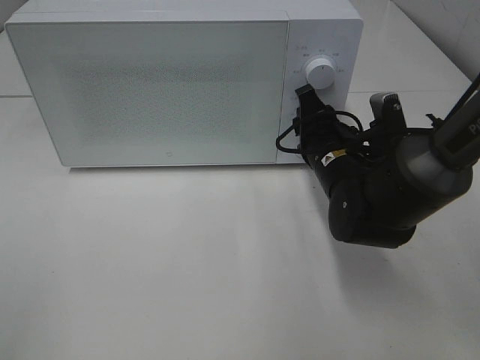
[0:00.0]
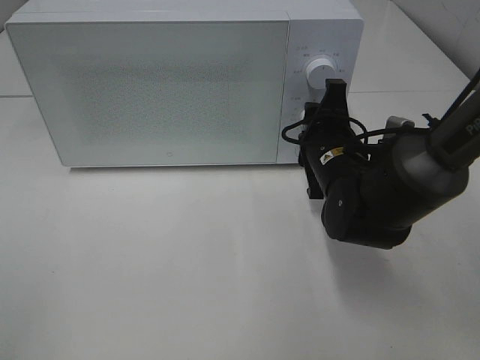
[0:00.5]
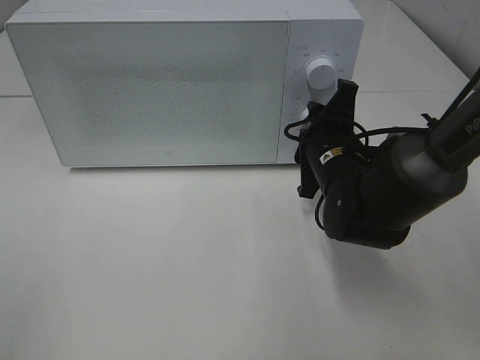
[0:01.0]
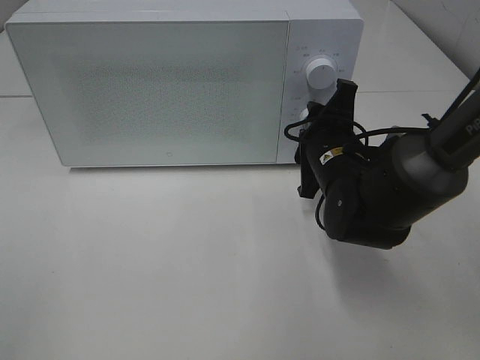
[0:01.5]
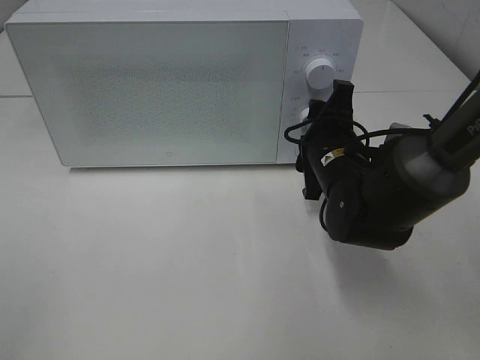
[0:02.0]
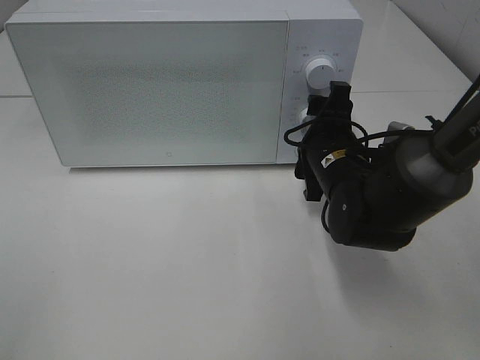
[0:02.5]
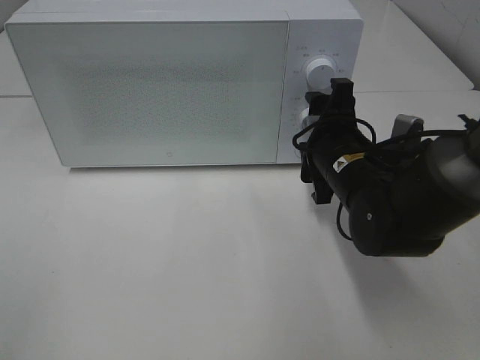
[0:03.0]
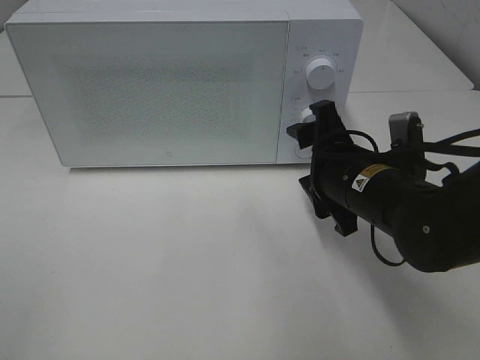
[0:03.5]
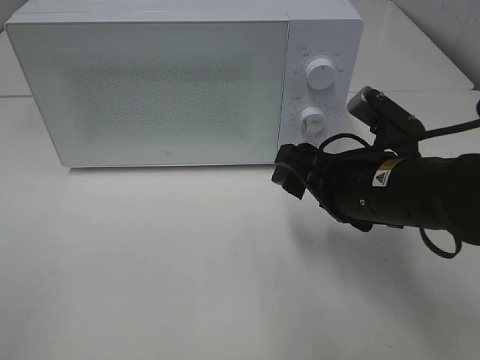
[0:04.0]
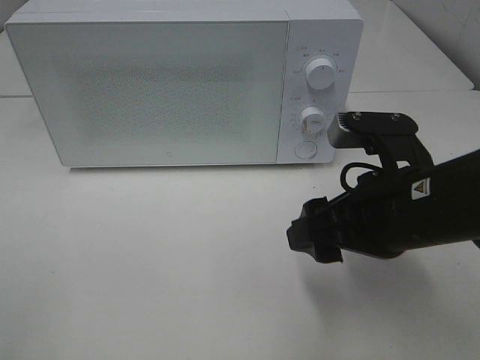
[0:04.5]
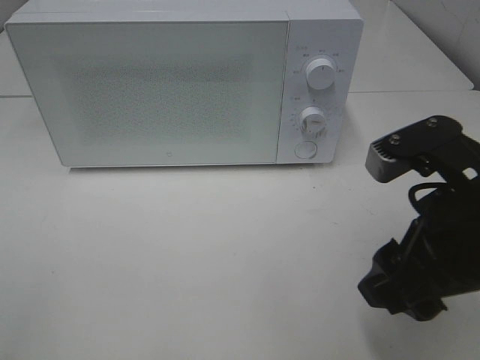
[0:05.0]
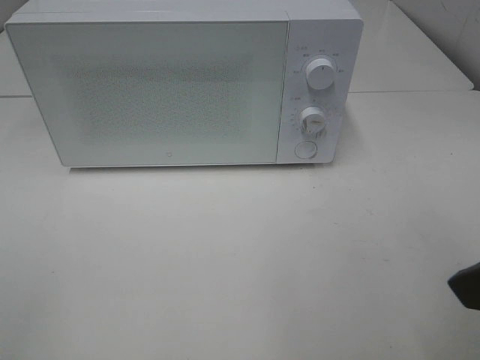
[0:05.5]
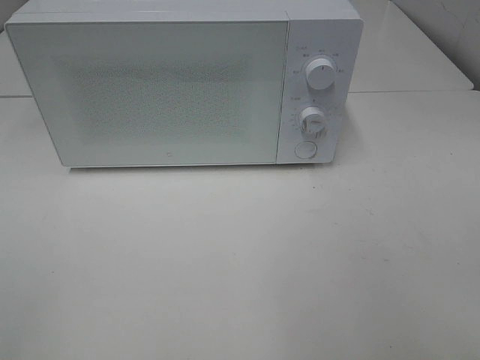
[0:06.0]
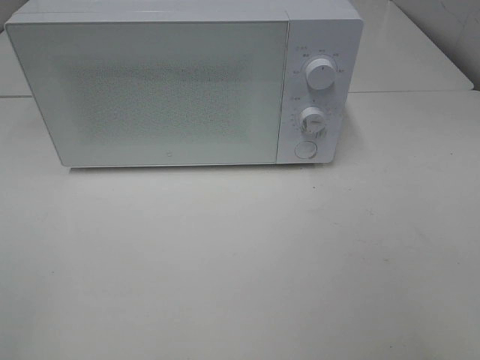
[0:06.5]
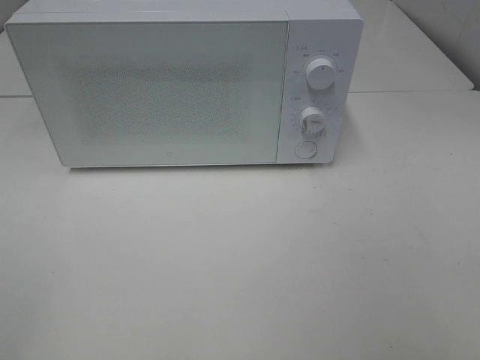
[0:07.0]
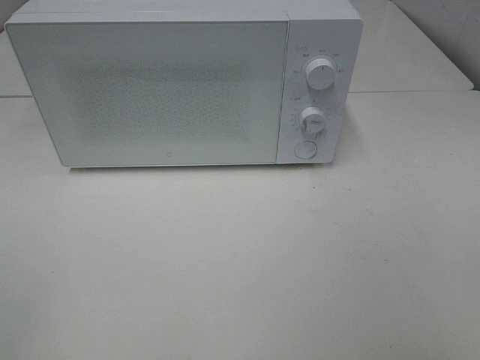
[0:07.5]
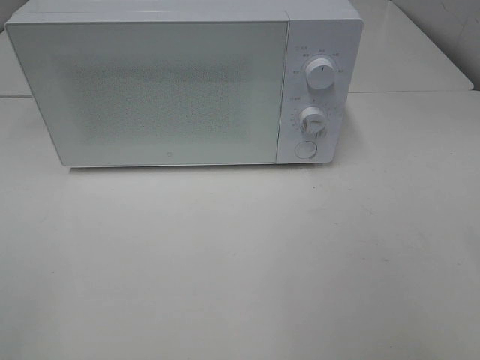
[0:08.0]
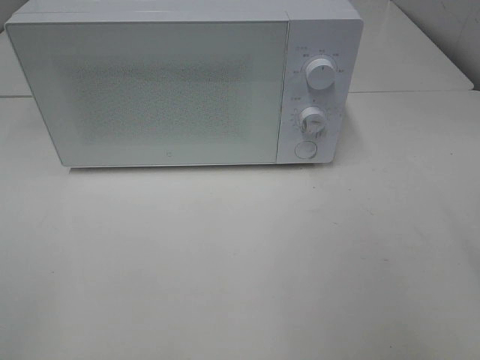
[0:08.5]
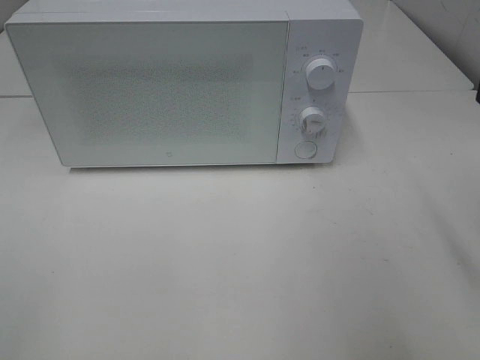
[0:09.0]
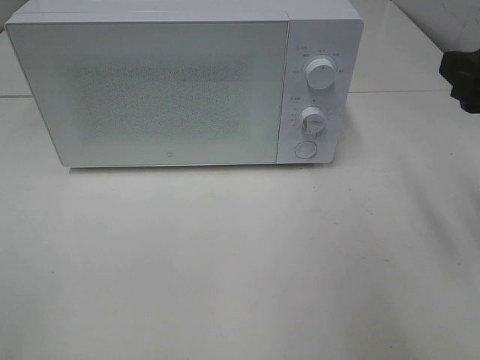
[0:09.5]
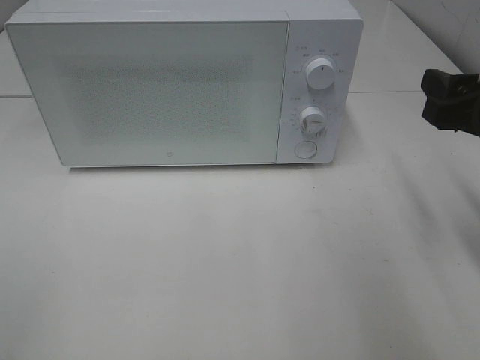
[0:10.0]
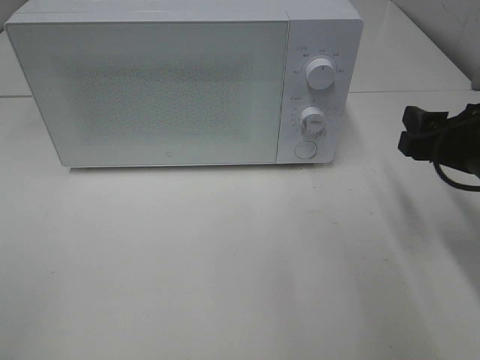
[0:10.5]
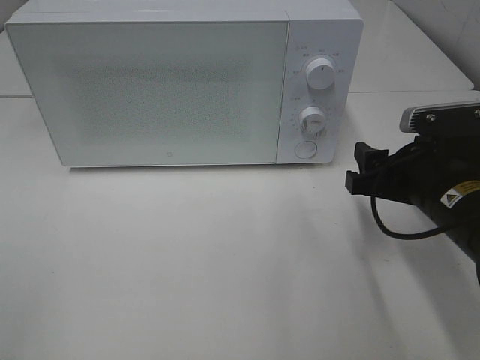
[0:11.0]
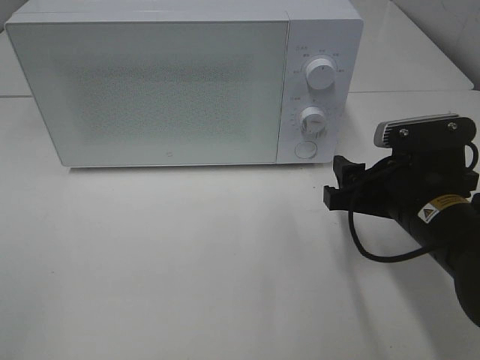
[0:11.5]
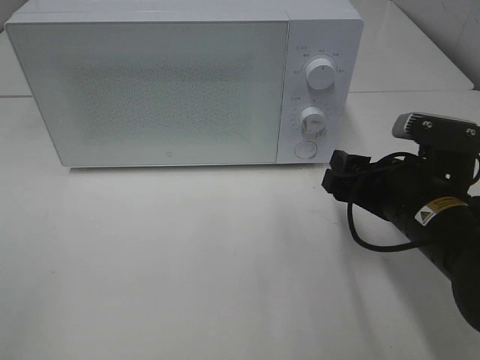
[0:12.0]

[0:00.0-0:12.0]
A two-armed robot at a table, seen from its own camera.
Task of the whole recording: Heat Sandwich.
Step, 0:00.0 to 0:02.5: Right hand: twist timer button.
0:02.0 to 0:04.0: The right gripper shifts approximately 10 cm backward.
0:04.0 to 0:06.0: The right gripper shifts about 25 cm backward, upward and to the right.
0:08.0 to 0:10.0: The right gripper shifts roughly 20 cm forward and downward.
0:10.0 to 0:12.0: The right gripper goes about 10 cm downward and to the left.

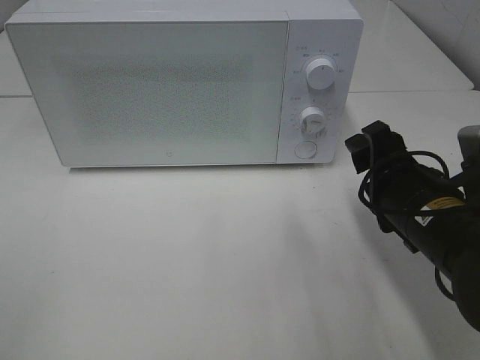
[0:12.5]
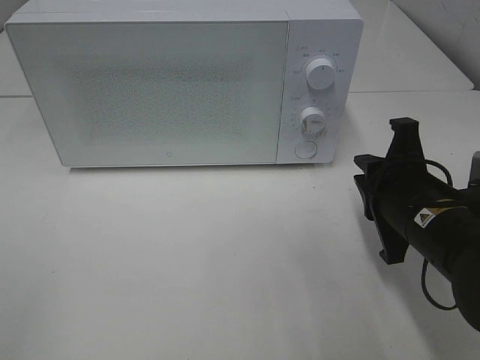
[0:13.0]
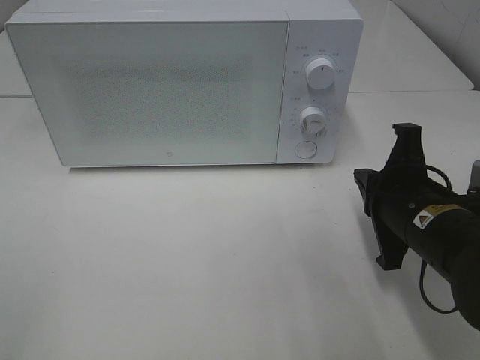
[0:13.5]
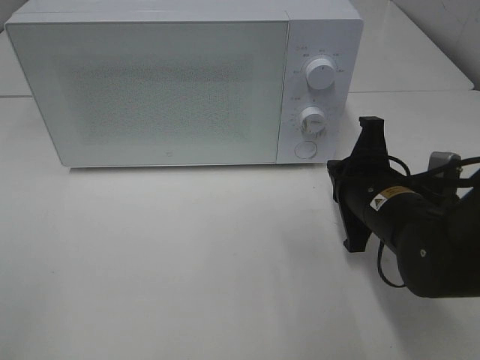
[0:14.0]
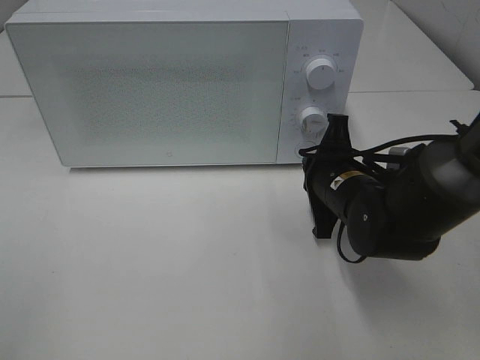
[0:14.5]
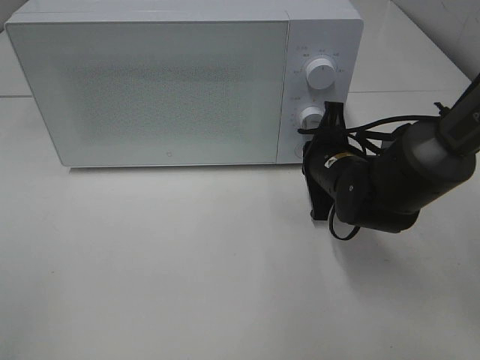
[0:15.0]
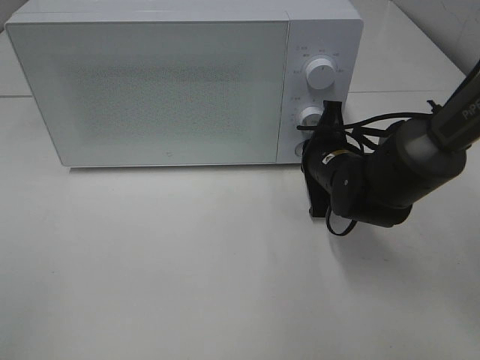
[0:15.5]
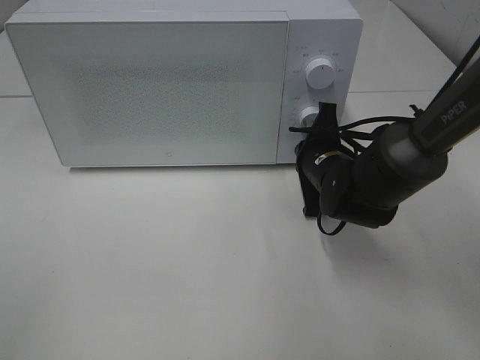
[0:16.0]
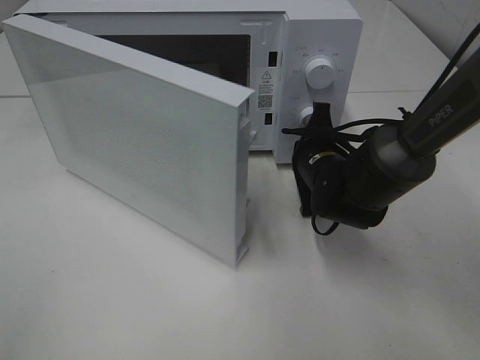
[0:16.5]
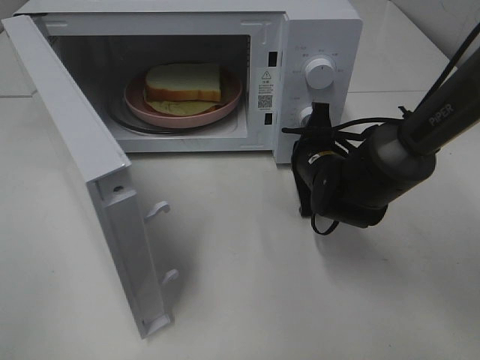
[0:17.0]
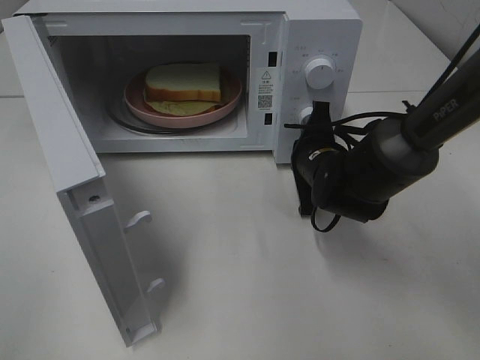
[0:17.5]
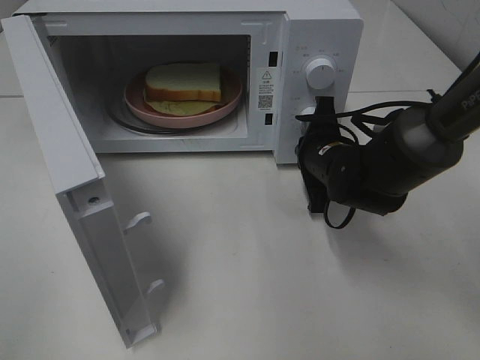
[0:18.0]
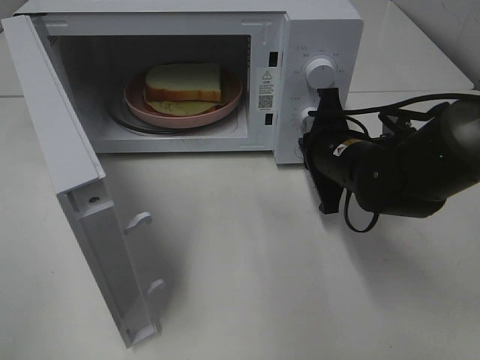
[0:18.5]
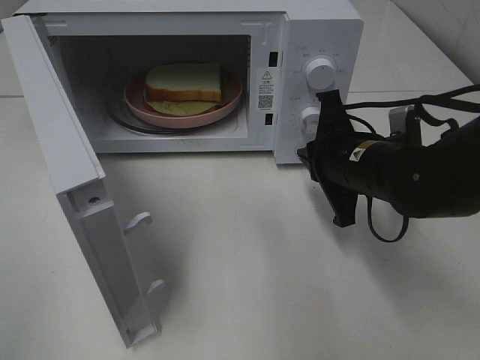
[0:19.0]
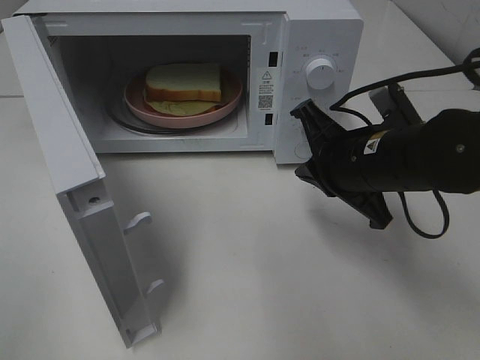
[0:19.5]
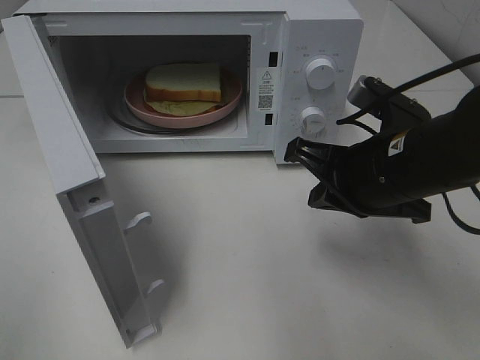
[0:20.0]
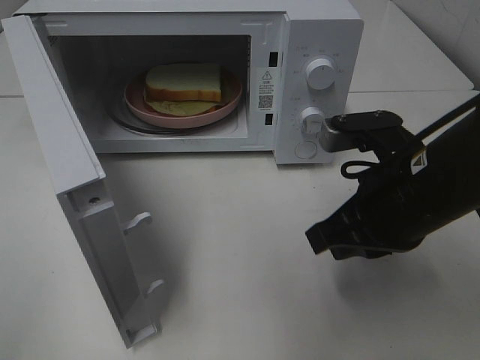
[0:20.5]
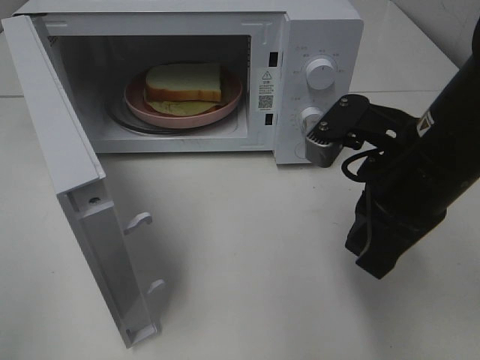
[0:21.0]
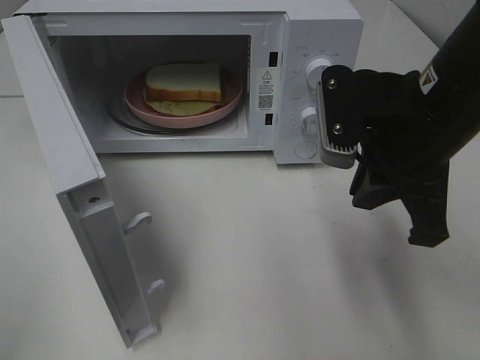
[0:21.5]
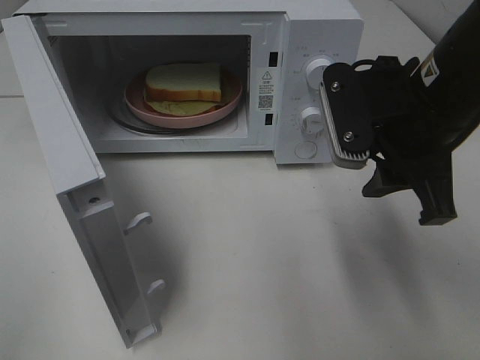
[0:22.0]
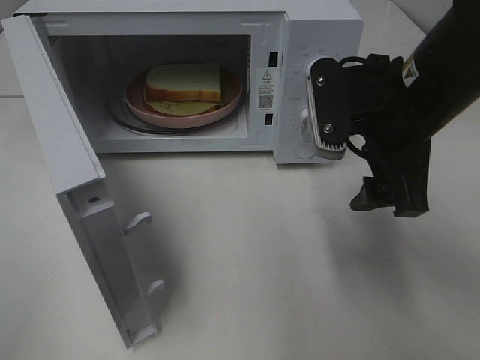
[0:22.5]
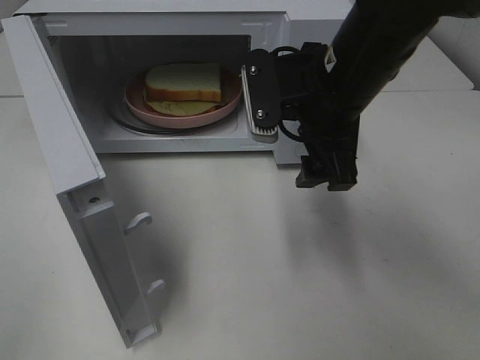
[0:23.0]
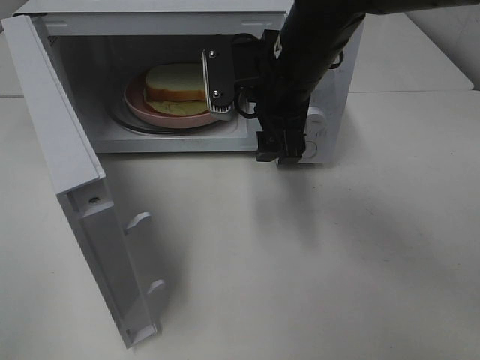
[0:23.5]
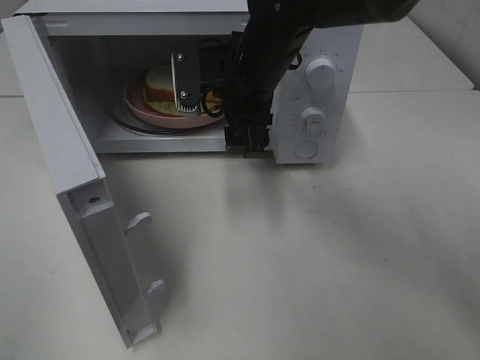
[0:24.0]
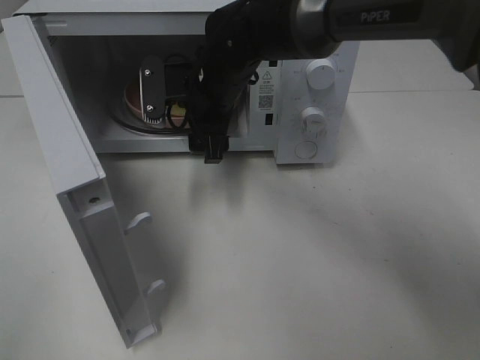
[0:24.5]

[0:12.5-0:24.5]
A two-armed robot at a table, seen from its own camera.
Task of the whole recording: Heat Sandwich.
Step, 0:12.5 to 0:18.0: Right hand: press the switch.
0:12.5 to 0:14.5: The right gripper shifts about 10 cm forward, and closes.
0:14.5 to 0:16.5: The right gripper shifts roughly 5 cm forward.
0:16.5 to 0:18.5: The right gripper moves approximately 5 cm.
0:18.5 to 0:20.5: The right gripper heads backward and upward, covering about 15 cm.
0:20.5 to 0:22.5: The right gripper is displaced upward by some 5 cm, and opens up.
0:22.5 to 0:24.5: The right gripper is displaced to the left, forward and downward by approximately 25 cm.

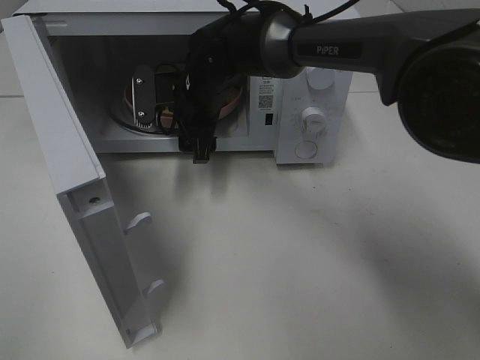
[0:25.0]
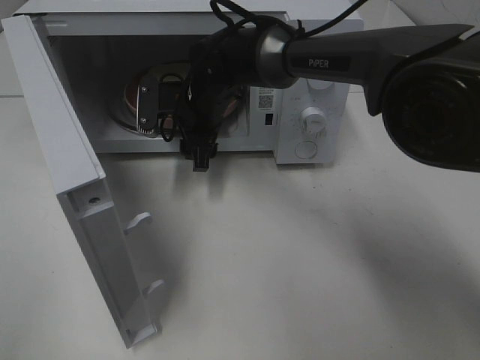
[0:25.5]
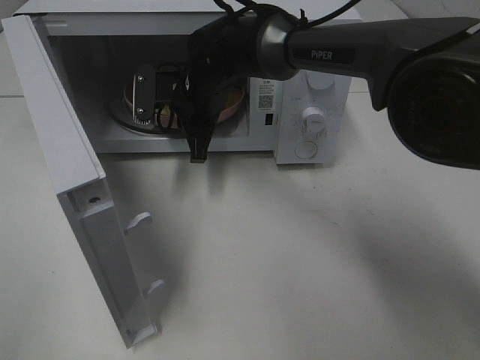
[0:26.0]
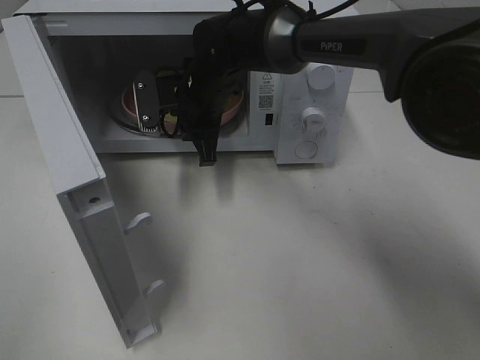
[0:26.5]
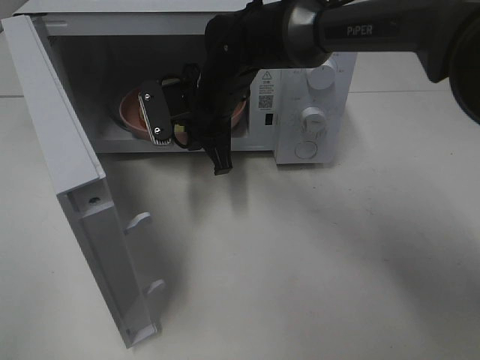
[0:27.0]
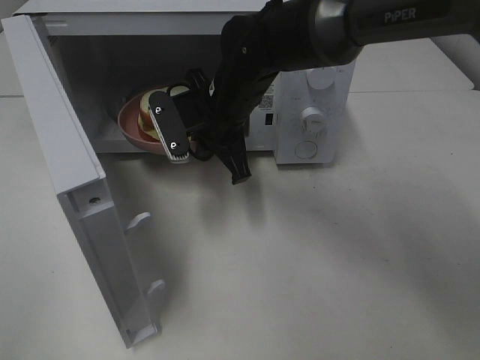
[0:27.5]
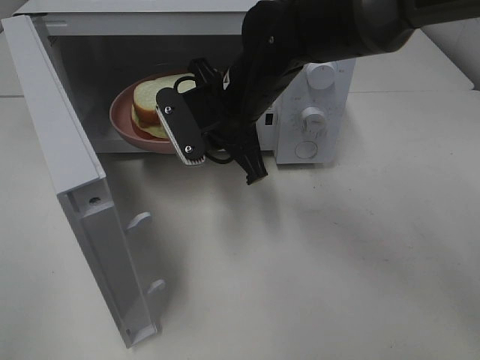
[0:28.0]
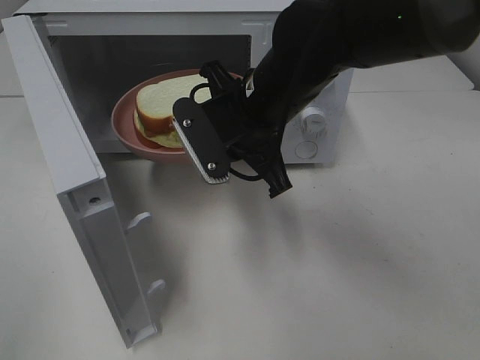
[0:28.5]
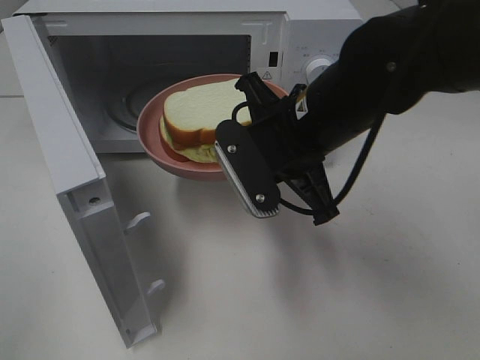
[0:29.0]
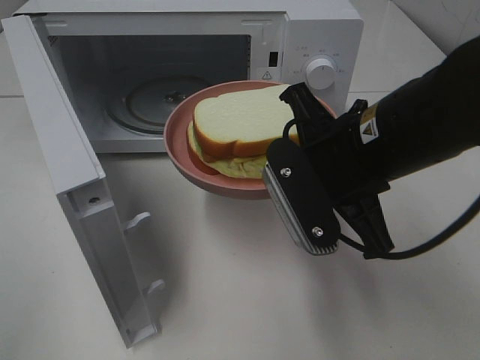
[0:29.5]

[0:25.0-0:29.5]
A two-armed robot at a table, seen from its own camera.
Task of the whole recording: Heat Sandwich.
0:25.0 to 0:27.0: The right gripper closes up.
0:27.0 to 0:29.5: The right gripper shifts some 20 cm backward and to the right.
